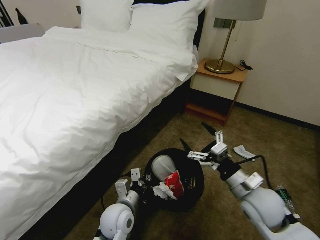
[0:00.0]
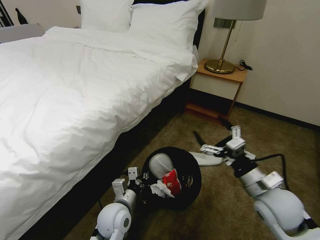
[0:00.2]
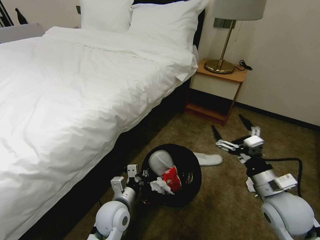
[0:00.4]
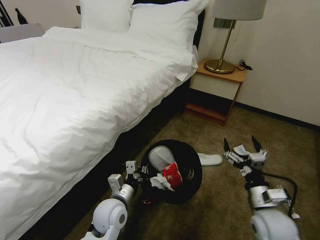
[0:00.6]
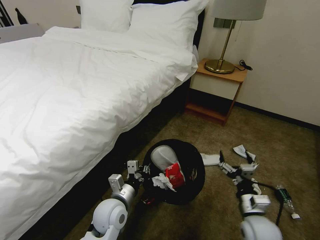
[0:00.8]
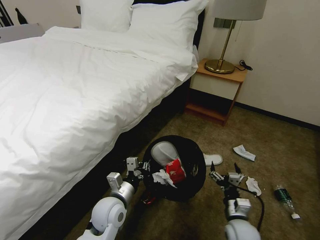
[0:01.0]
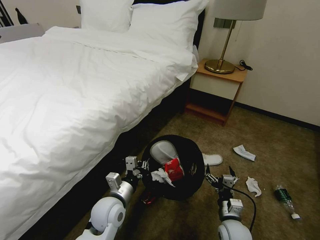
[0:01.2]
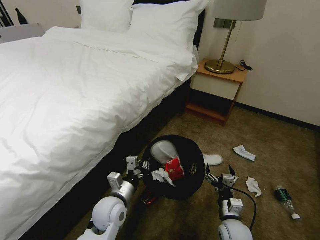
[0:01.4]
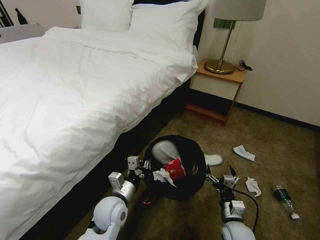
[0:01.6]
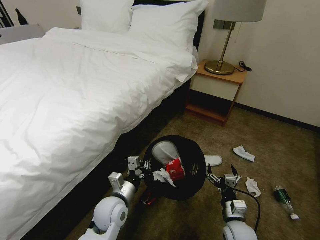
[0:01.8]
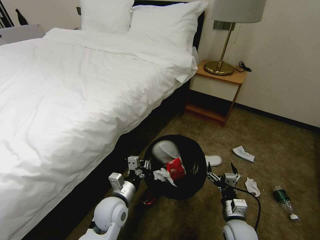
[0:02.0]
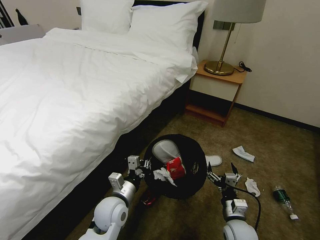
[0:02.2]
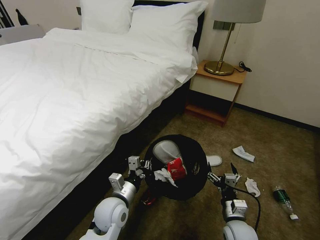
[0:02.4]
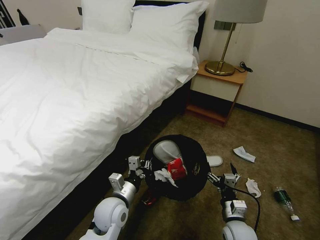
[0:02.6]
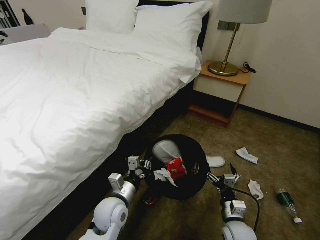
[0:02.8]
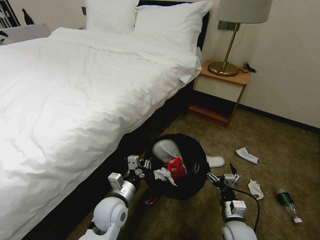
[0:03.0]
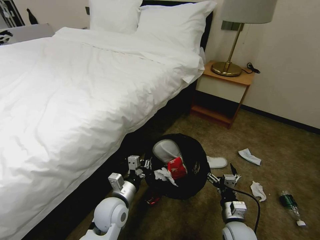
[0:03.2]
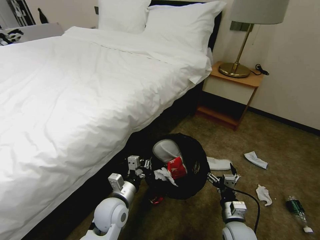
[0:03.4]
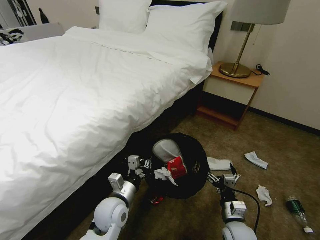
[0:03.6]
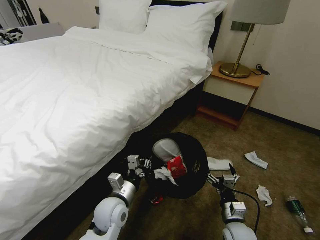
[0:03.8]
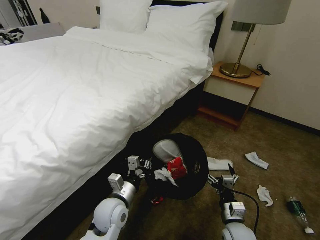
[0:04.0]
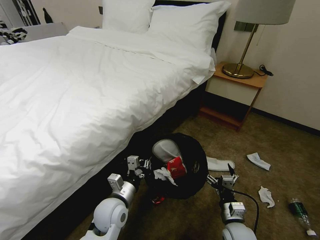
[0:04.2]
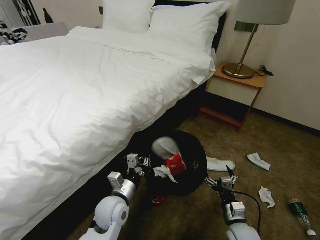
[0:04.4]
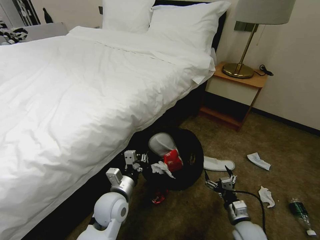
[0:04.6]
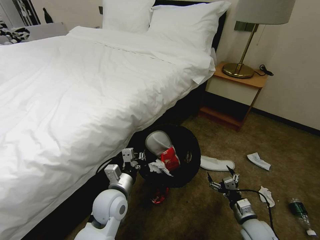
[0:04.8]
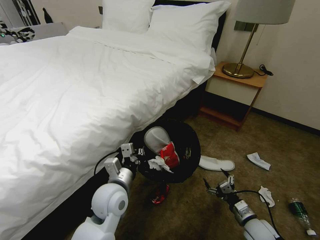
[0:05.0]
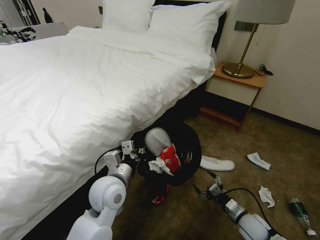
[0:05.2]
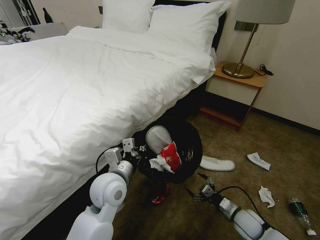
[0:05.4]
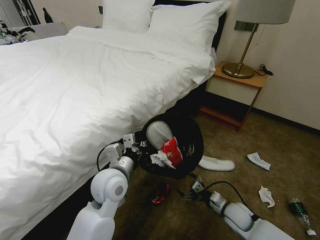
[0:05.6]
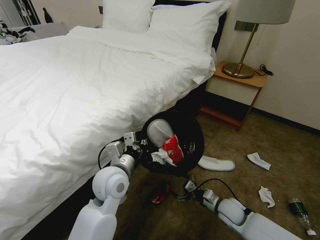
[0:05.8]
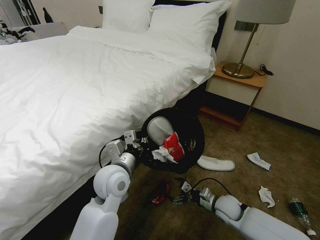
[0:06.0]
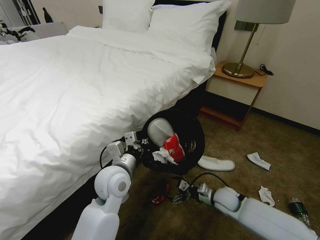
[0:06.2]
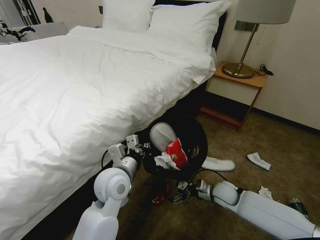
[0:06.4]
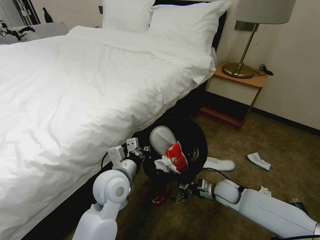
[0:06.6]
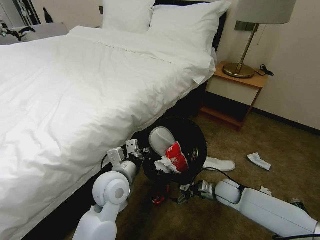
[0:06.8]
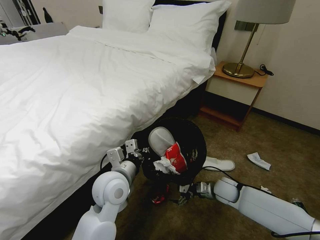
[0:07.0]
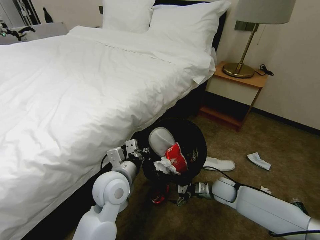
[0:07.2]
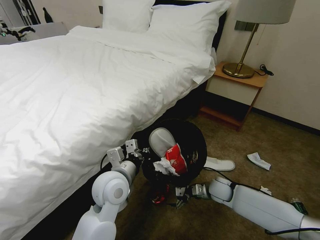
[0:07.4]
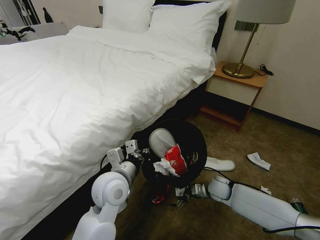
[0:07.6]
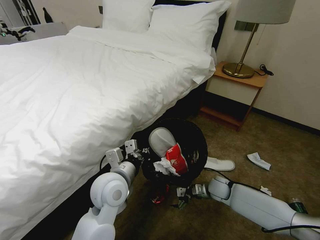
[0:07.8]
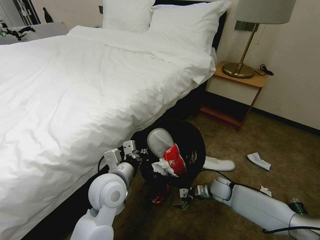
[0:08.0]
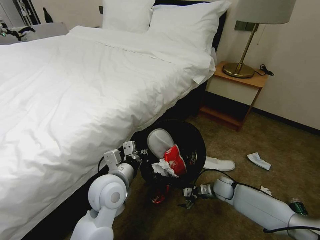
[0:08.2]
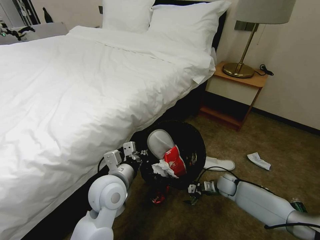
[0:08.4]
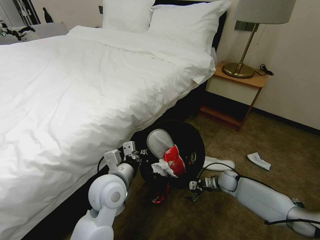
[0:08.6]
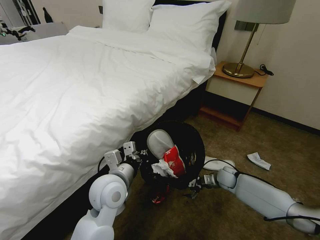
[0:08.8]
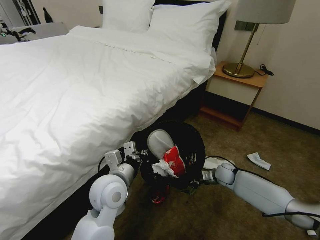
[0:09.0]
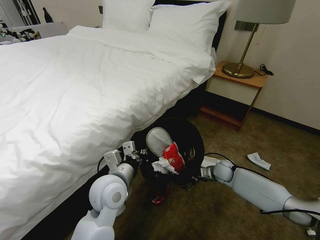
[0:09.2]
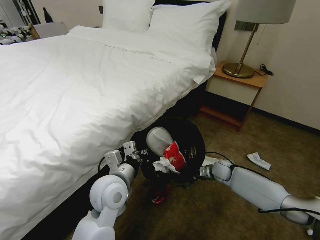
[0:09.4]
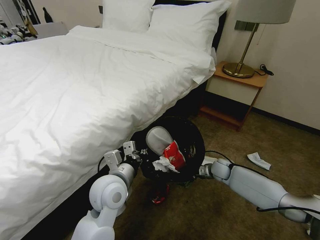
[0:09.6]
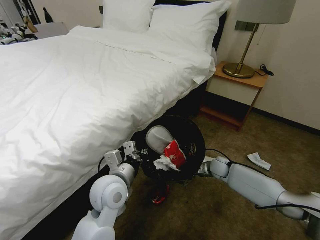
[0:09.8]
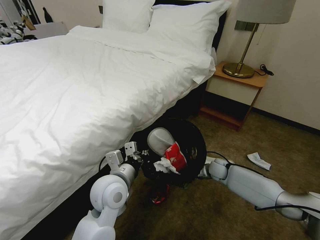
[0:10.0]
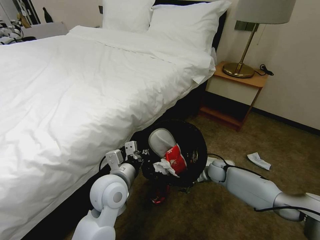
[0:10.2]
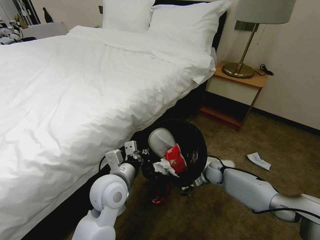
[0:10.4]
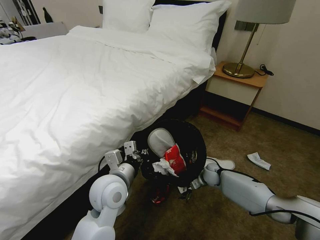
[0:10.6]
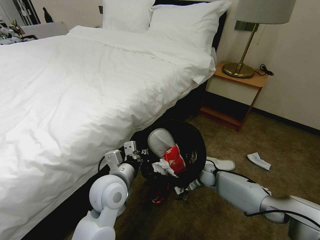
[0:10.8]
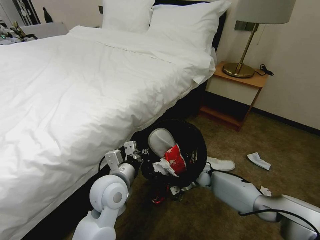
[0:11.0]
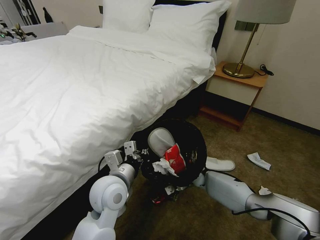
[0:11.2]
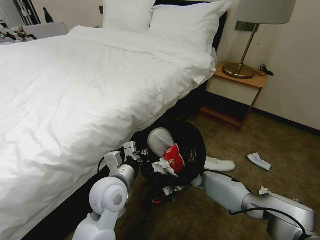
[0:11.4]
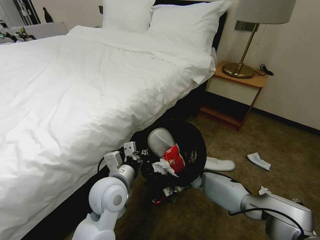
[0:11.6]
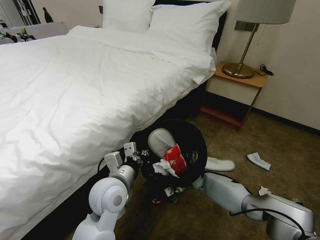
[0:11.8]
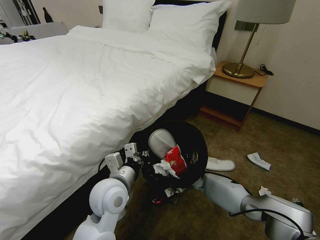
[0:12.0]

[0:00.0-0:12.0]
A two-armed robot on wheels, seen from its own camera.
Task of the whole recording: Pick up the trash bin, then pick up the garbage on the floor and place it into the trash bin.
0:00.0 to 0:01.6: The right gripper goes approximately 20 cm downward.
0:01.6 to 0:03.0: Neither gripper changes place.
0:03.0 to 0:04.4: The grippers make only small movements.
0:04.4 to 0:06.0: The right gripper travels forward by some 10 cm. The left gripper moves upward, some 10 cm.
0:06.0 to 0:07.6: The right gripper heads forward, covering roughly 10 cm.
0:07.6 to 0:09.0: The right gripper heads forward and to the right, covering approximately 10 cm.
0:10.4 to 0:12.0: The right gripper shifts about 5 cm to the left.

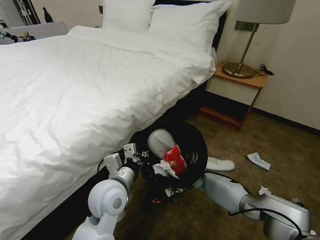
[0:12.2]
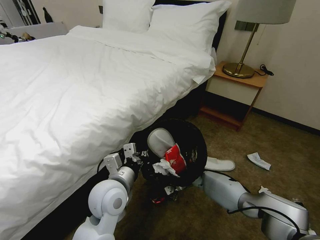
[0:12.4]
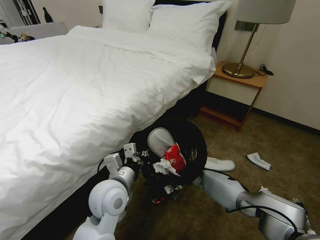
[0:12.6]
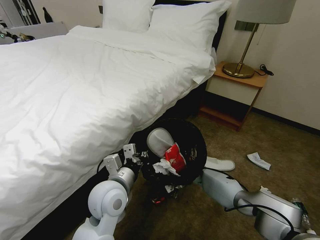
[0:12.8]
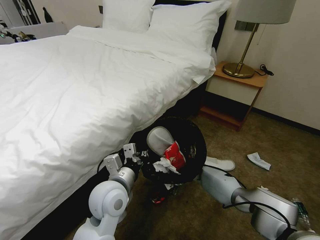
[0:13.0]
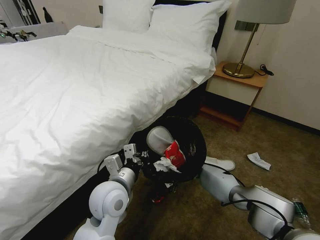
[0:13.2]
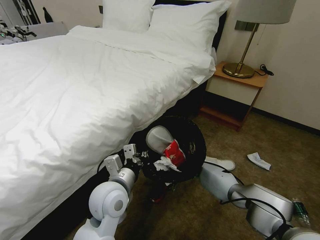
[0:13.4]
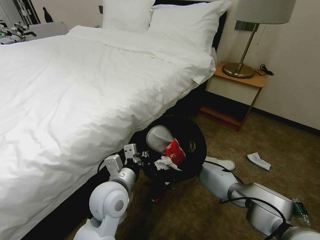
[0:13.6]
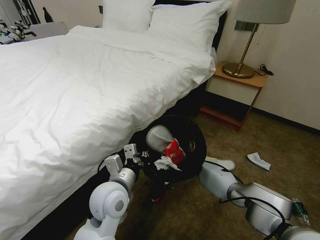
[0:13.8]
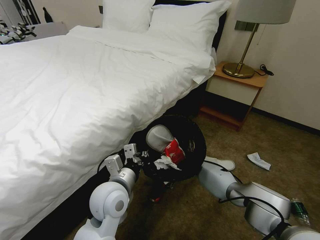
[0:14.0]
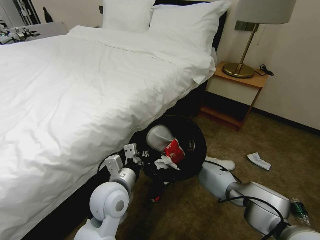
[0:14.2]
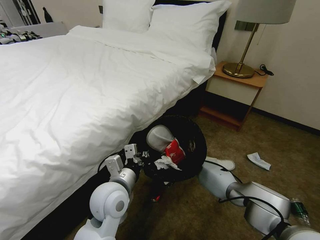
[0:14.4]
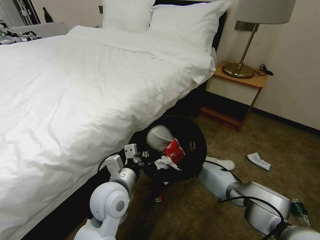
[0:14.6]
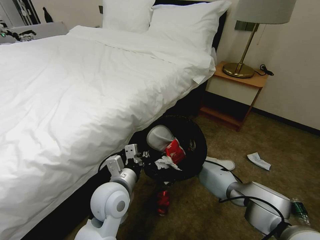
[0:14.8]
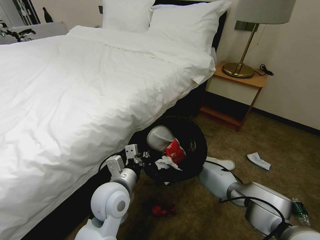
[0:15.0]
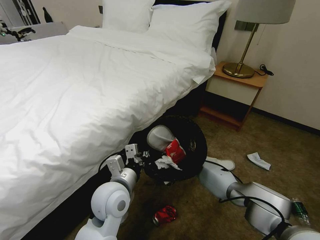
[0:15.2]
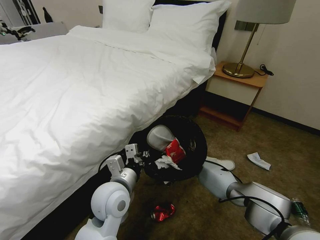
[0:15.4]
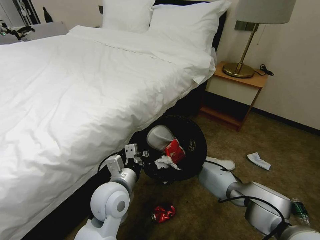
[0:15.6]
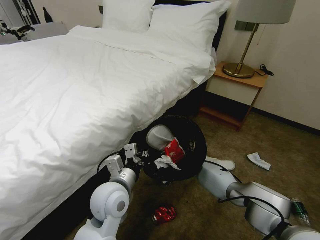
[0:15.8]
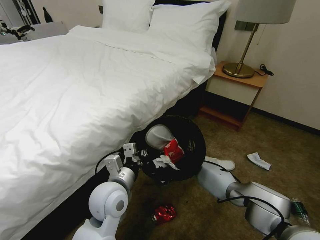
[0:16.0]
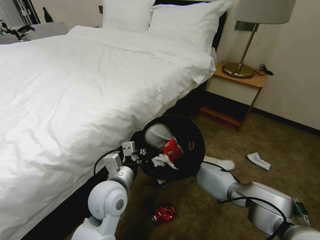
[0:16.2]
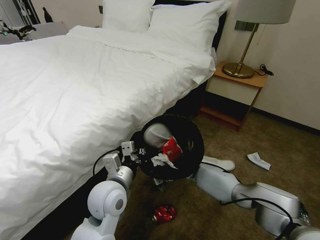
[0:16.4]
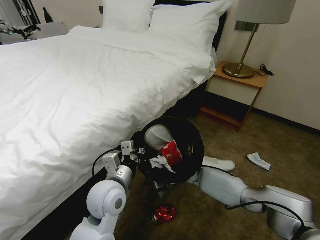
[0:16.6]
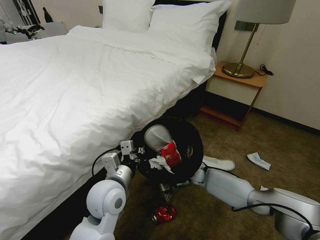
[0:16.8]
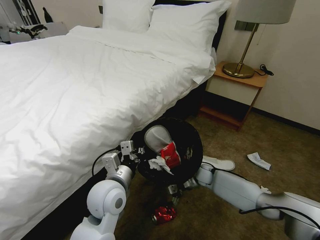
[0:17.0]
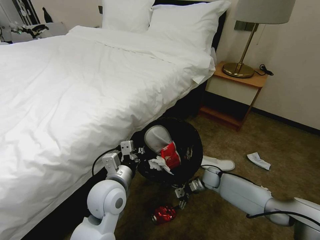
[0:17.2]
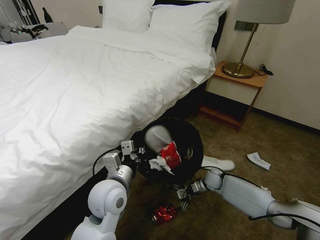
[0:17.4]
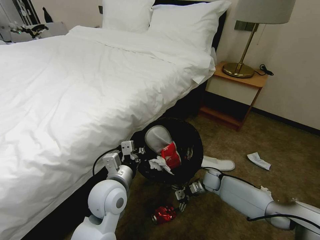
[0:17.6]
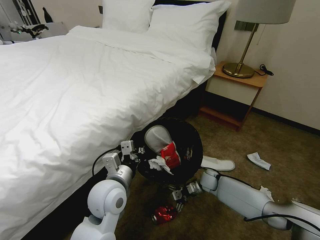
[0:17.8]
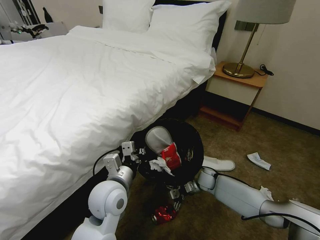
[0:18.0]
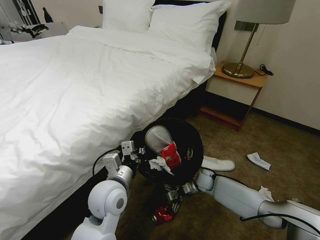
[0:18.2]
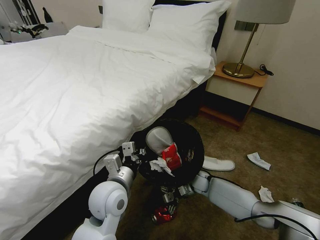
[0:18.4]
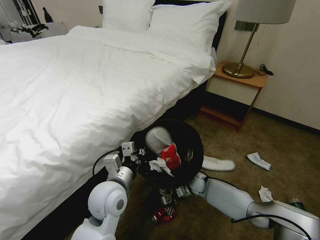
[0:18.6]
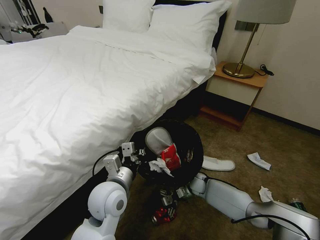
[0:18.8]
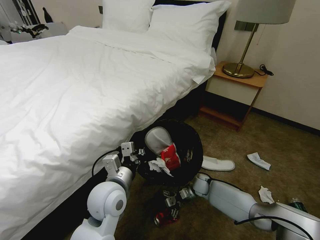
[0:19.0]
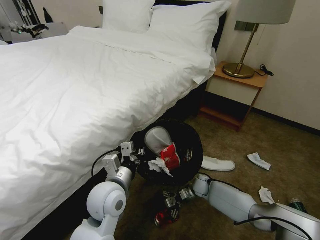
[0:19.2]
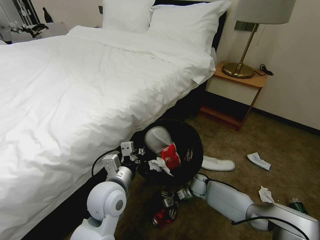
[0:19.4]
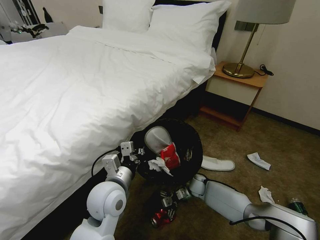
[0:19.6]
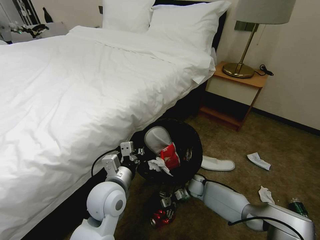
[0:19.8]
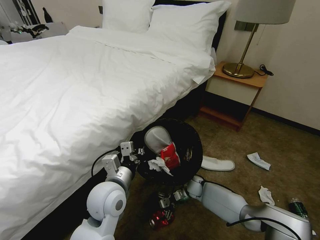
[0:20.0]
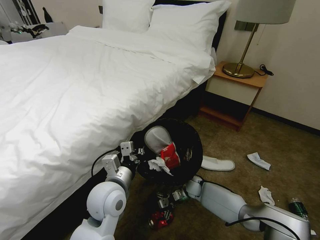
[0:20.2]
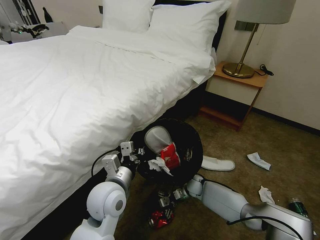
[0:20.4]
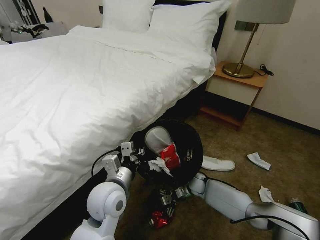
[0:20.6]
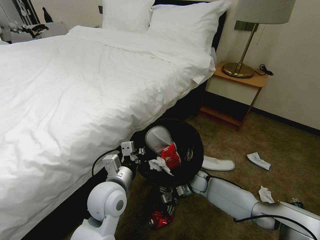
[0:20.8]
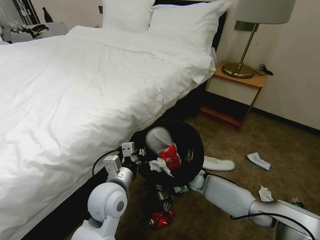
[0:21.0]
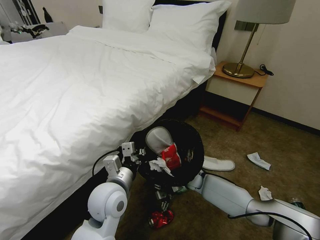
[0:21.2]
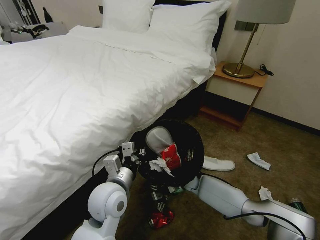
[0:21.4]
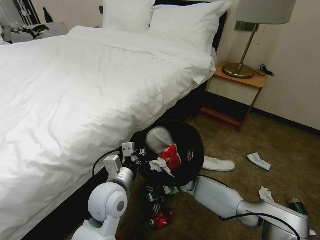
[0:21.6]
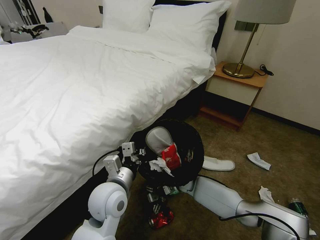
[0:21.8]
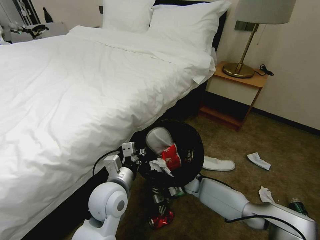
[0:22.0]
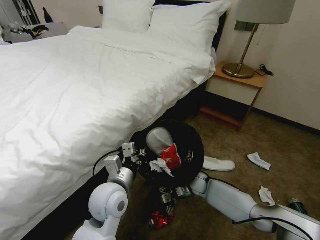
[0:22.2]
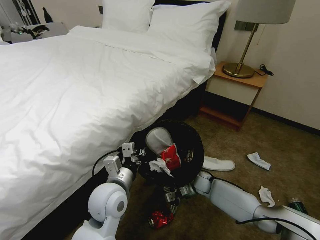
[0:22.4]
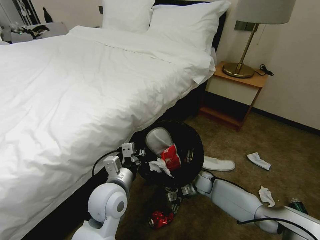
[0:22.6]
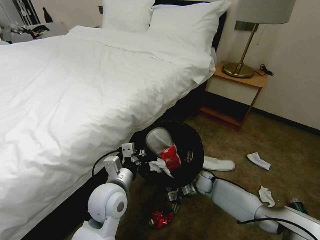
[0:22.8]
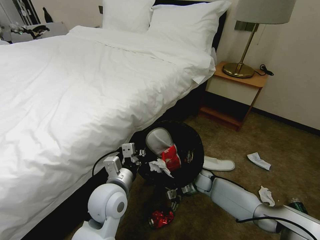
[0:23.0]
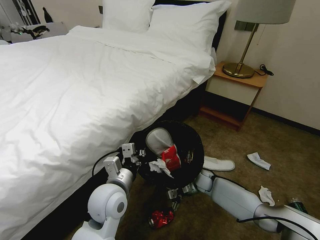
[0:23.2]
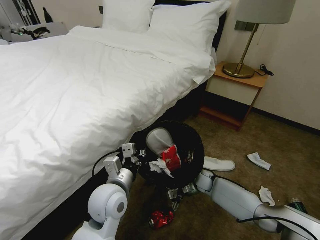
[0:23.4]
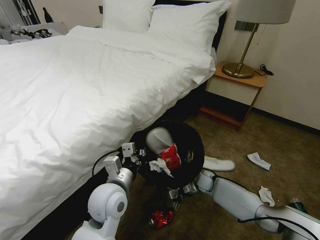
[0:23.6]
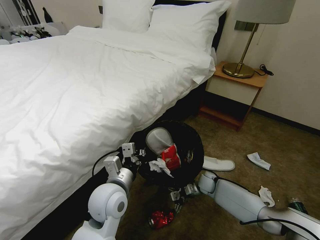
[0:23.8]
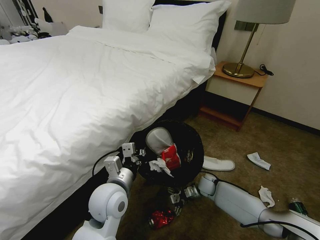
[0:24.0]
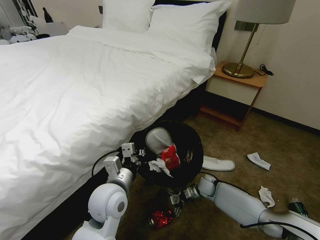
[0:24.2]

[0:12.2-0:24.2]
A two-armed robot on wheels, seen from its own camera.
Task of the whole recording: Pick up the trash bin, then pick up the garbage on the floor and place it into the trash bin.
0:12.2 to 0:13.8: The right gripper travels forward by some 5 cm.
0:13.8 to 0:15.2: The right gripper closes its fingers.
0:15.2 to 0:16.6: The right gripper moves about 5 cm, and opens up.
0:16.6 to 0:18.2: The right gripper goes roughly 5 cm to the right.
0:18.2 to 0:19.8: The right gripper moves some 5 cm.
0:19.8 to 0:21.2: The right gripper heads upward, covering about 5 cm.
0:21.2 to 0:22.6: The right gripper travels to the right by roughly 5 cm.
0:22.6 to 0:24.2: The grippers move only a little.
